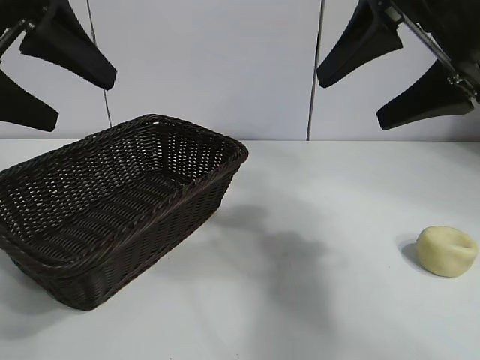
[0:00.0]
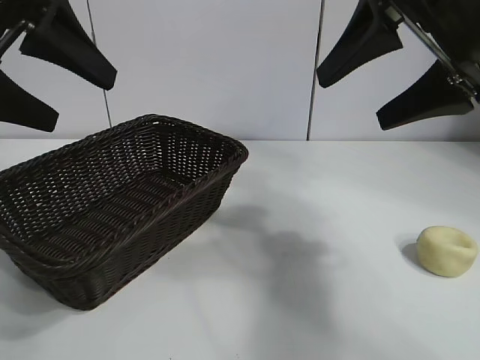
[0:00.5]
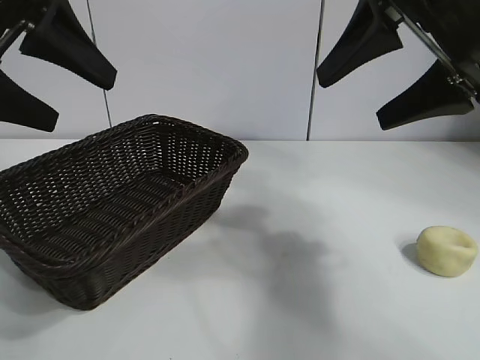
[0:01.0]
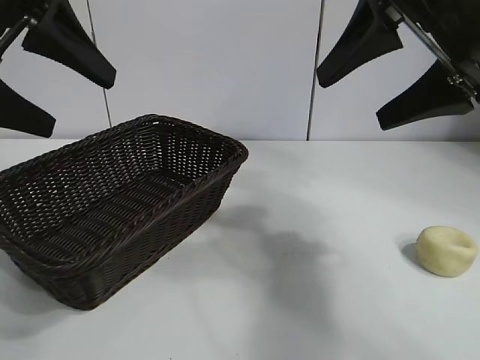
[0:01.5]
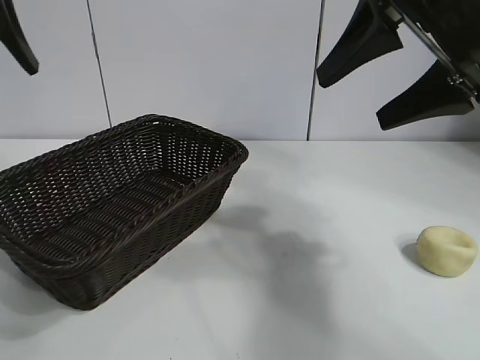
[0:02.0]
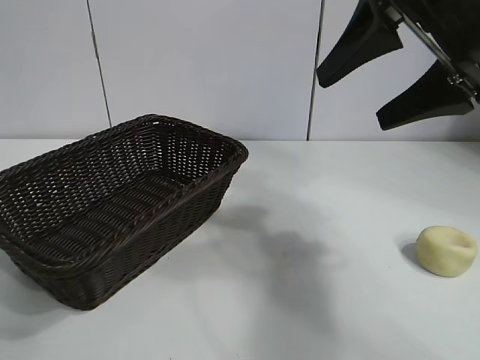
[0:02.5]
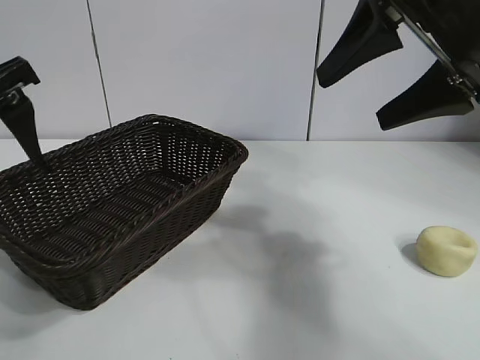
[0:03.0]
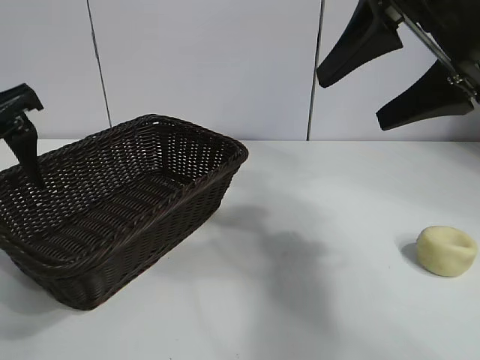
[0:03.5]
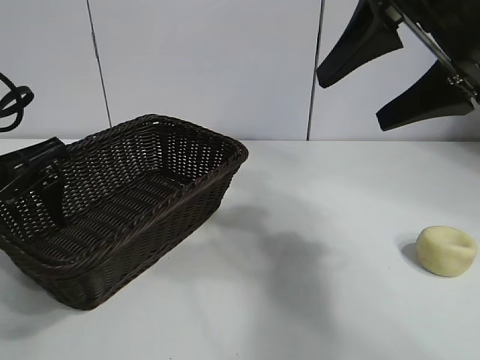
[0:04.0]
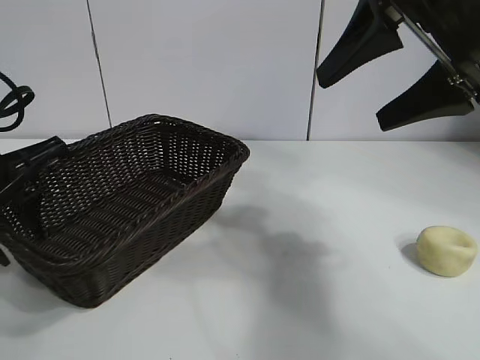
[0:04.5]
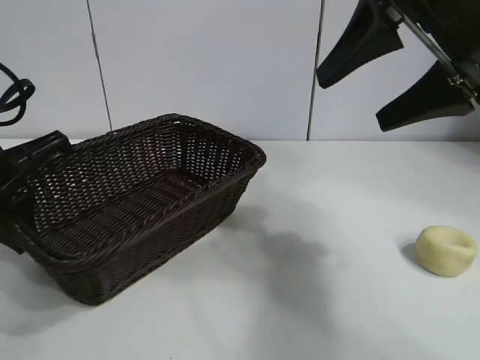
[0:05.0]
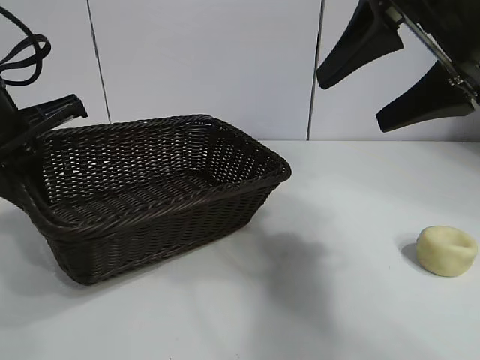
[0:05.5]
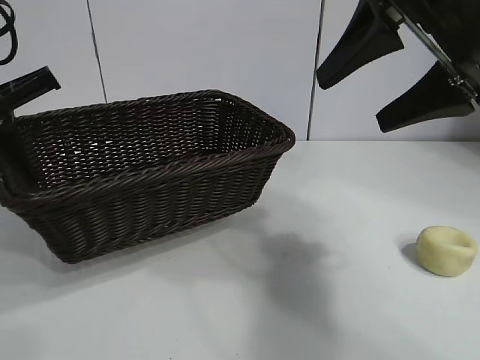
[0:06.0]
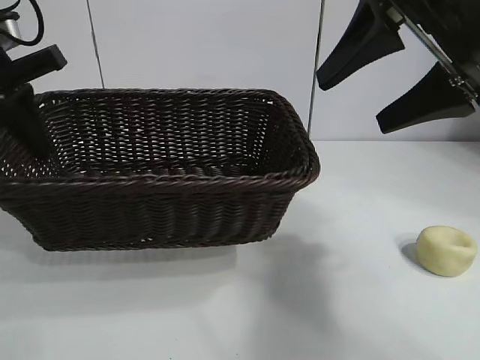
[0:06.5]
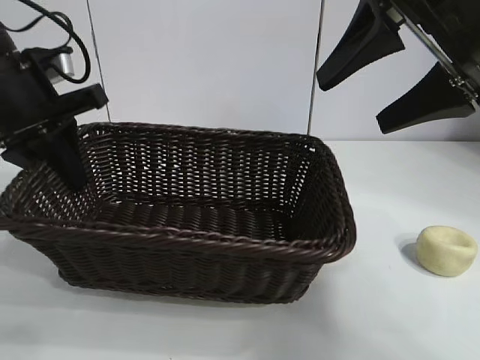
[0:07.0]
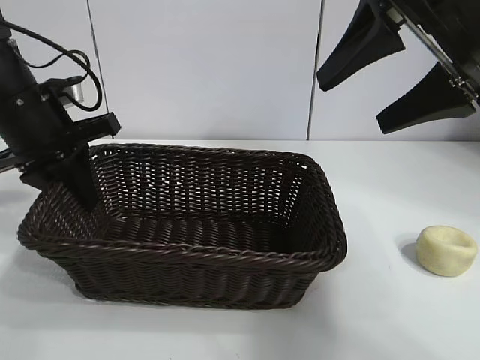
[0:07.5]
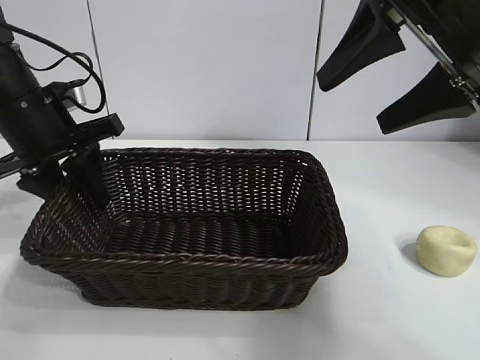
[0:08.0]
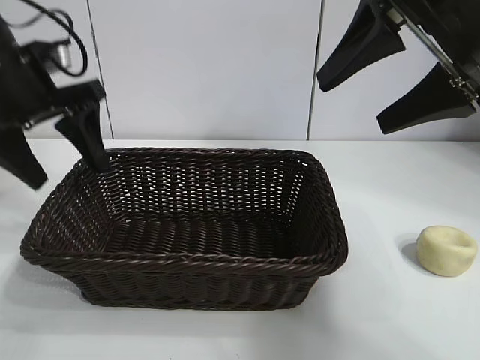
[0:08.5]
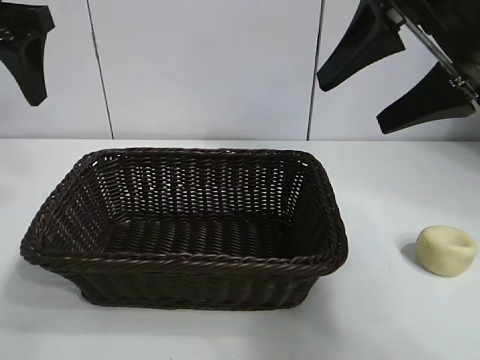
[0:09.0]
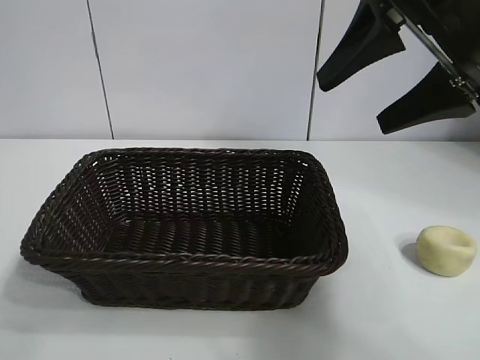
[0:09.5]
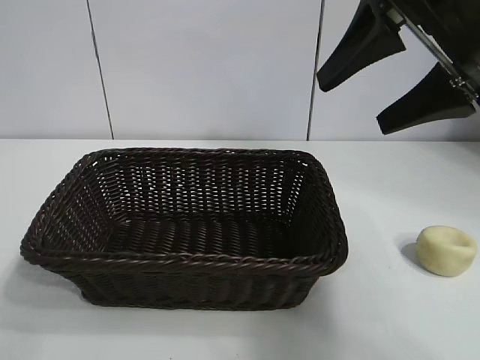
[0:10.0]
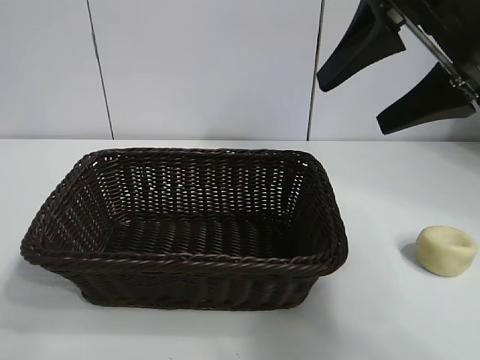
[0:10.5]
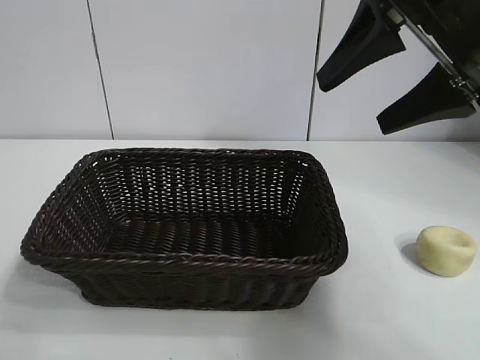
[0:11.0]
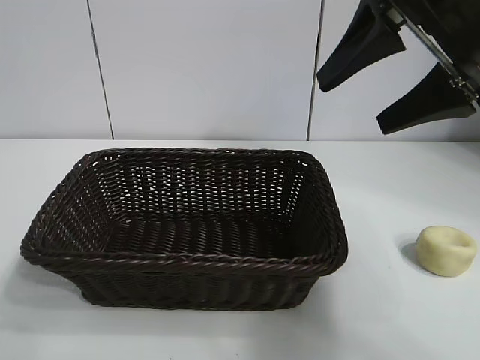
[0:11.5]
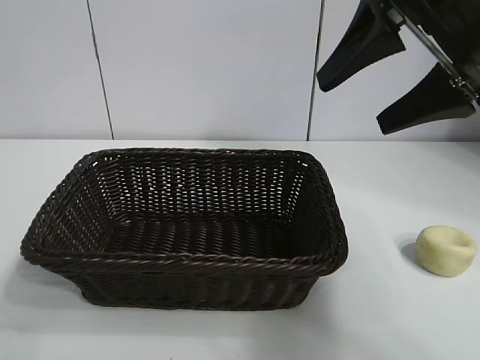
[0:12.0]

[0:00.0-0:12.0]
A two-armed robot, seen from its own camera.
Task of the whole recording: pick up the egg yolk pastry and put it into the basket.
Step, 0:01.0 to 0:04.5: Grasp the basket with left gripper.
Step, 0:05.0 to 0:08.0: Place the basket in the center of view with left gripper.

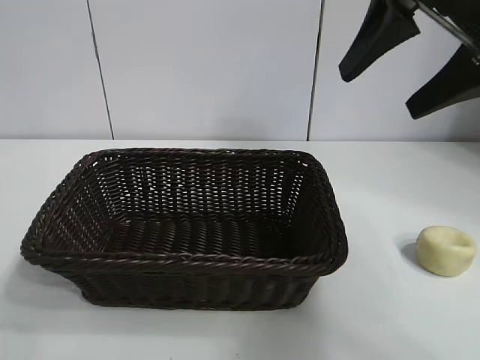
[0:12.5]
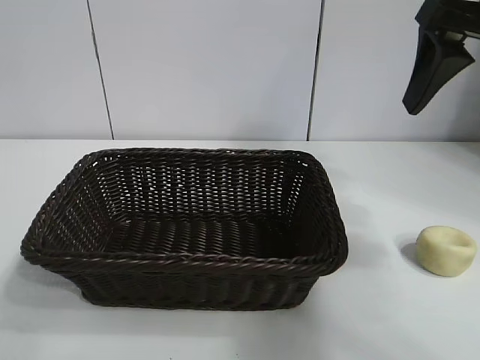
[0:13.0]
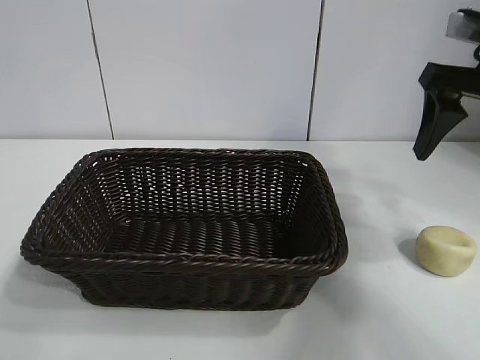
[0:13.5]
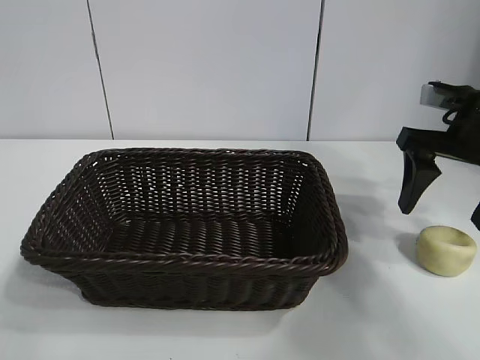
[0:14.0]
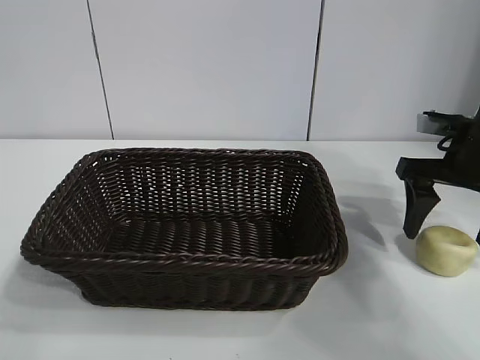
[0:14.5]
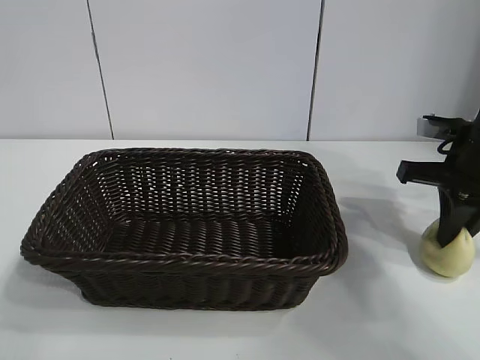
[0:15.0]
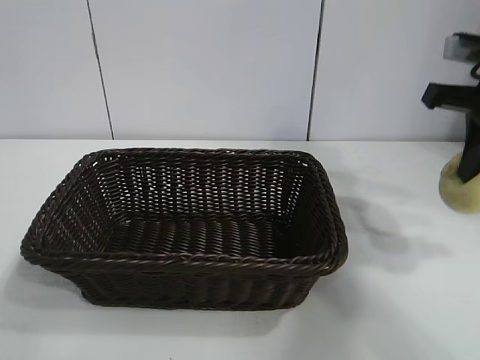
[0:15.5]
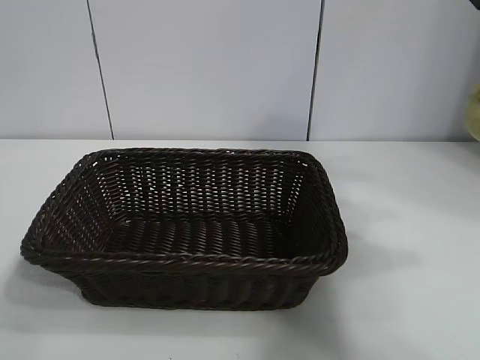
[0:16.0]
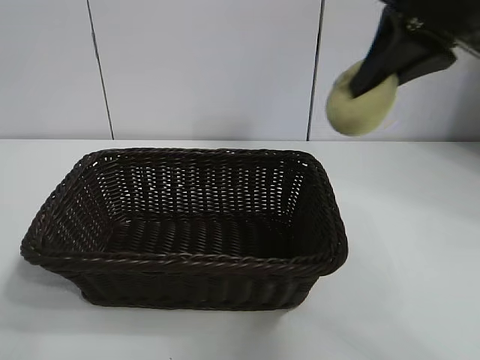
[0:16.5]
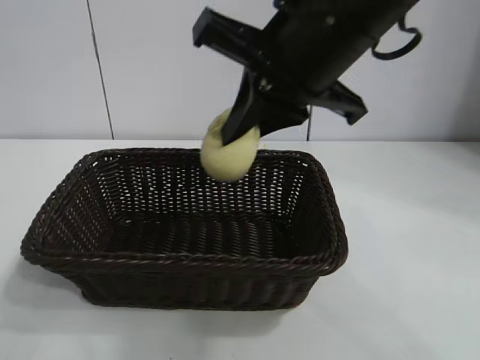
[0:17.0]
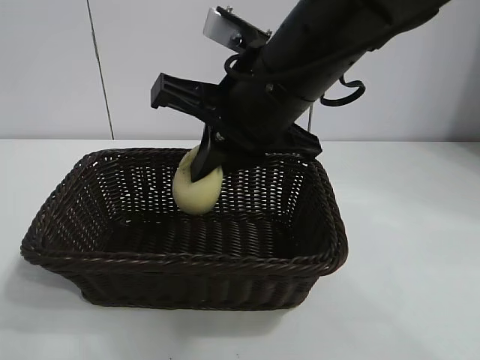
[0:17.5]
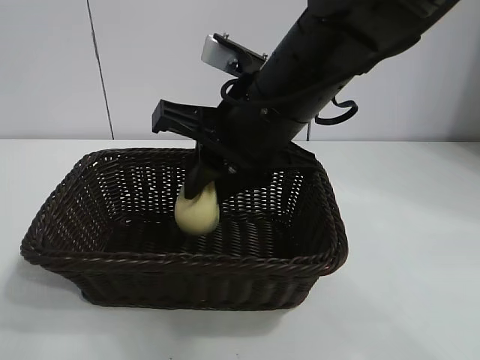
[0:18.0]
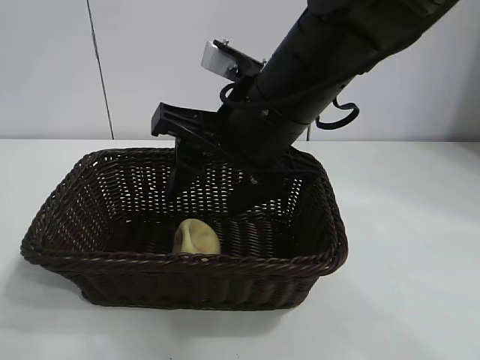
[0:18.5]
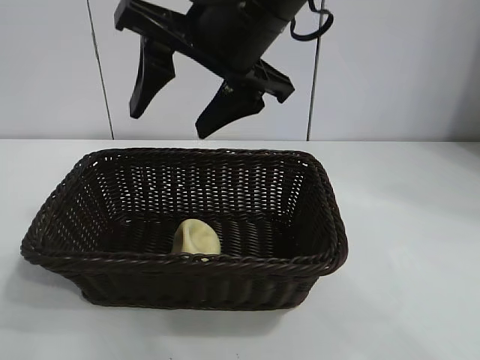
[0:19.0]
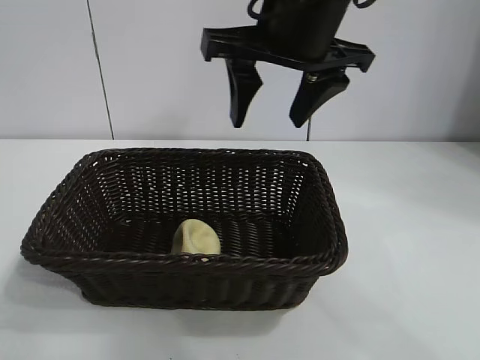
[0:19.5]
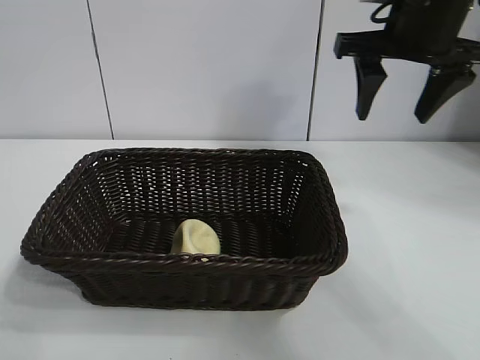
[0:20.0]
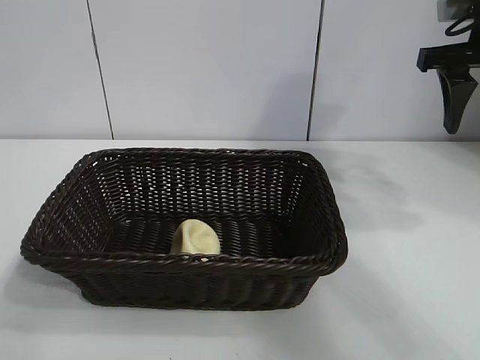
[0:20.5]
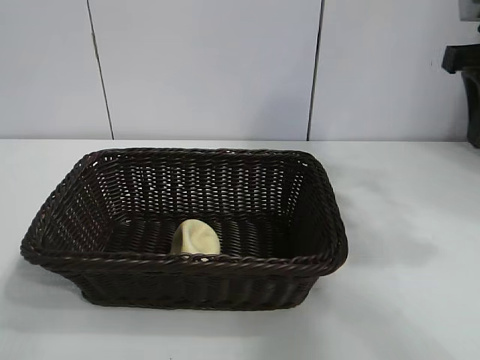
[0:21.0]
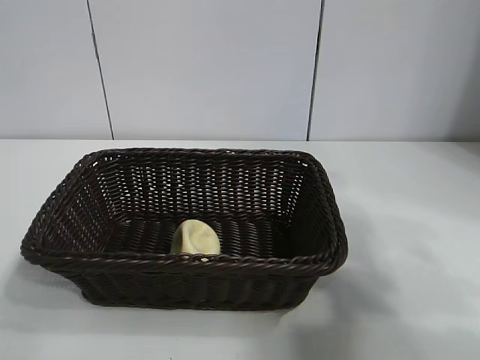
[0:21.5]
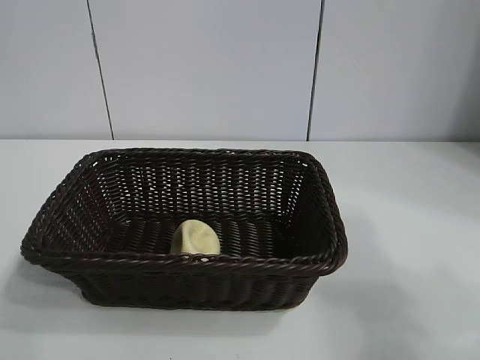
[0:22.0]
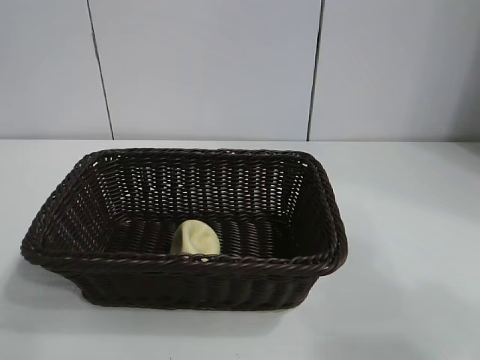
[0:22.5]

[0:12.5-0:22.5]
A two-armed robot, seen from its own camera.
Task of the whole recording: pick up the egg yolk pastry and put it into the basket.
Step, 0:12.5 to 0:15.0: Grasp egg yolk pastry with right gripper.
Step, 0:15.5 to 0:18.0: Place the egg yolk pastry in the basket with right gripper.

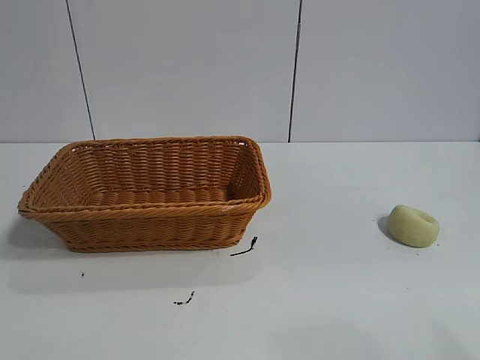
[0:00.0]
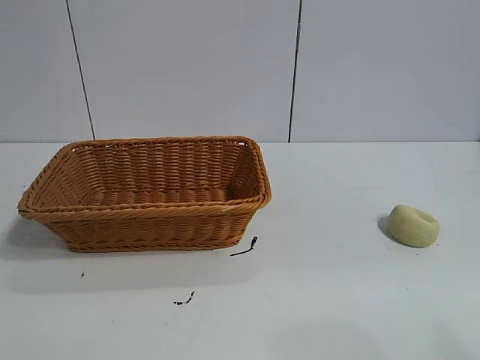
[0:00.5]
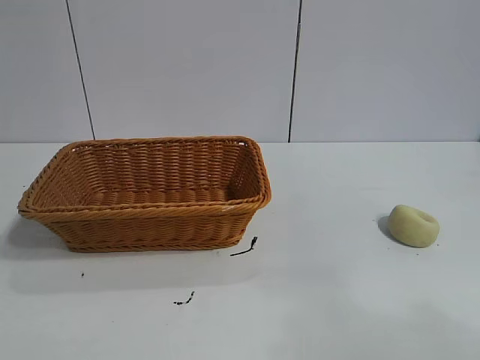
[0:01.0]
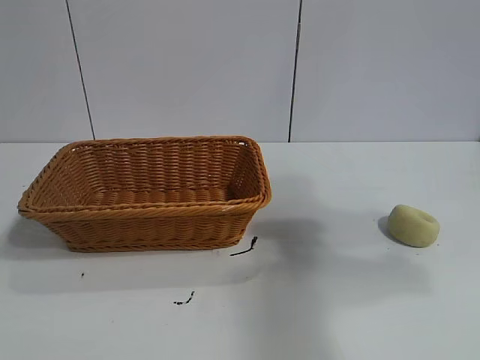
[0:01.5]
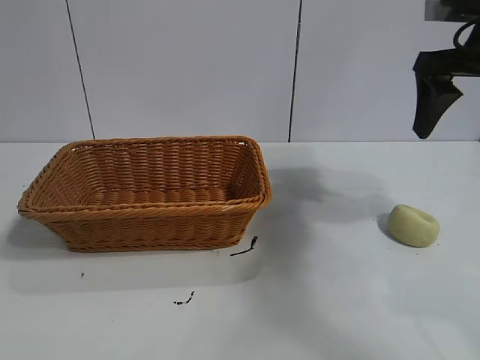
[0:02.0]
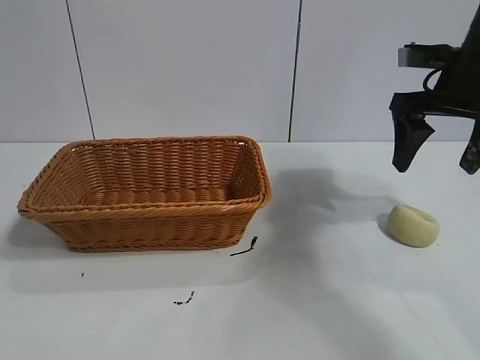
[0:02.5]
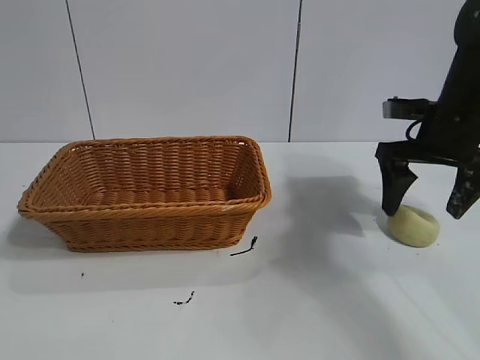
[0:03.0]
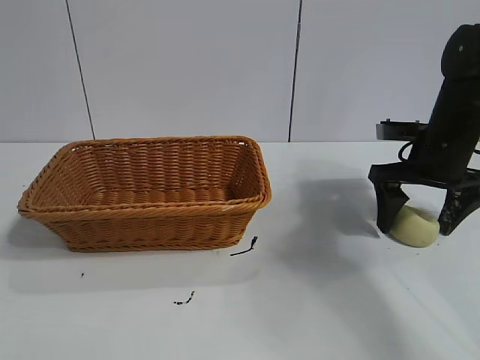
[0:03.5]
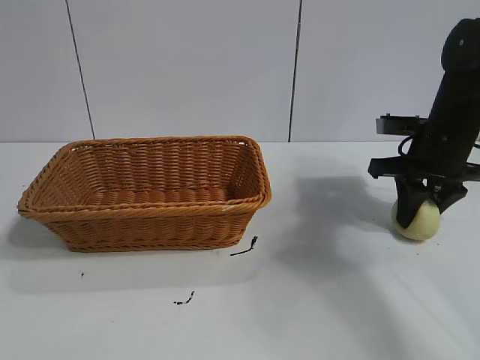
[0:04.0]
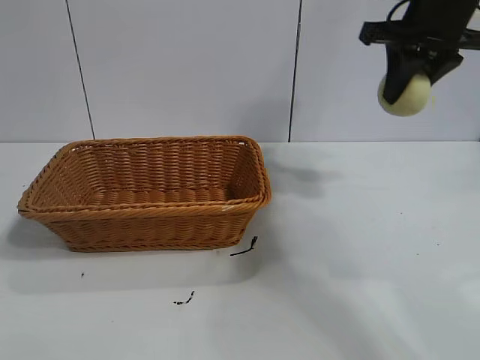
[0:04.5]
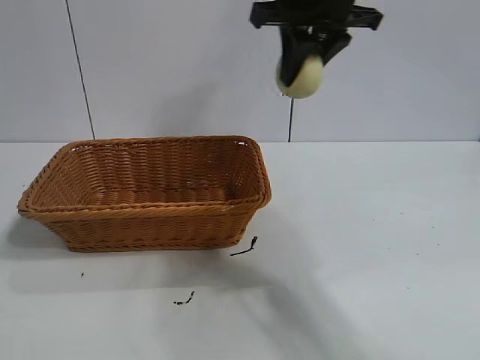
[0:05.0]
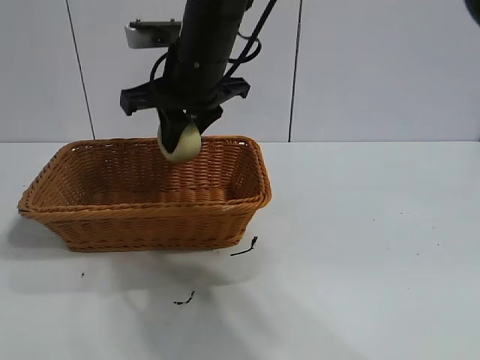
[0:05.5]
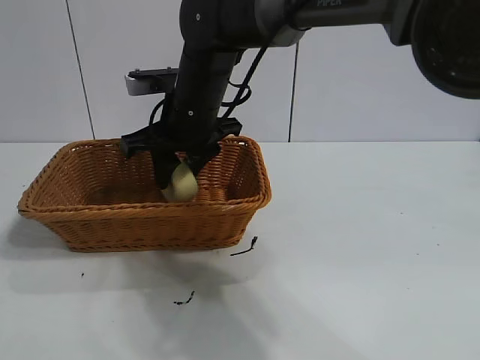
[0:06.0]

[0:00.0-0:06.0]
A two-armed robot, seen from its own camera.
Task of the whole recording: pick up the egg yolk pastry and put it into the basket.
Step, 0:01.0 to 0:03.5: Grasp egg yolk pastry with right gripper.
Step, 0:04.0 to 0:06.0: Place the egg yolk pastry in the basket with right gripper.
